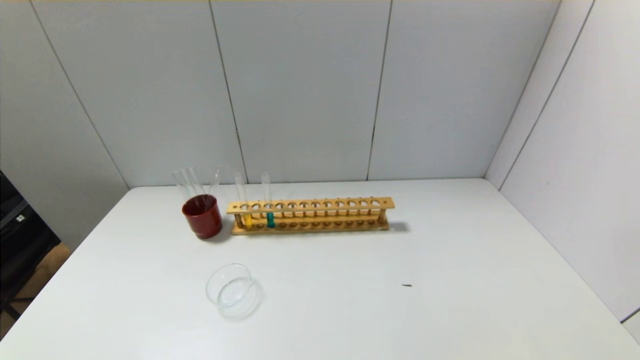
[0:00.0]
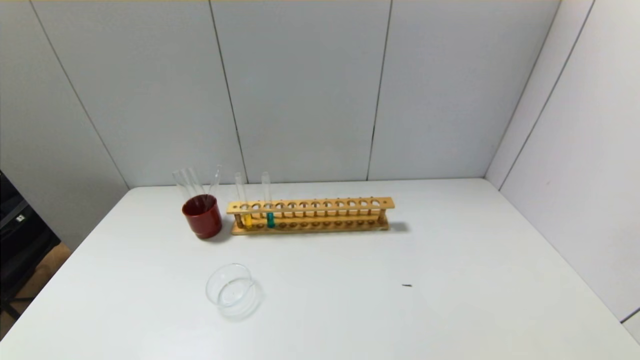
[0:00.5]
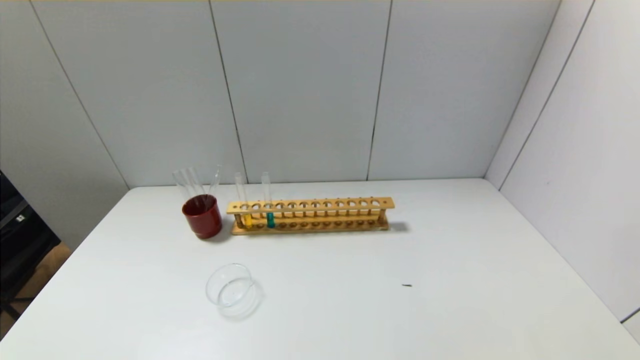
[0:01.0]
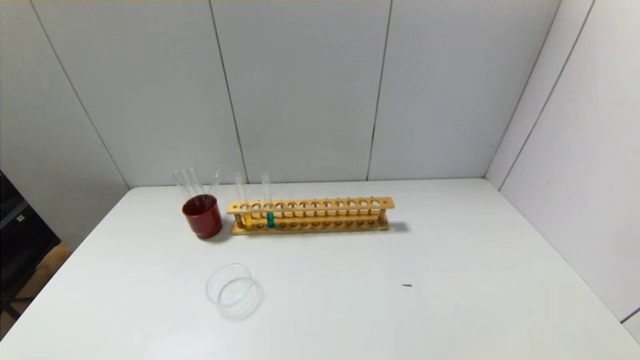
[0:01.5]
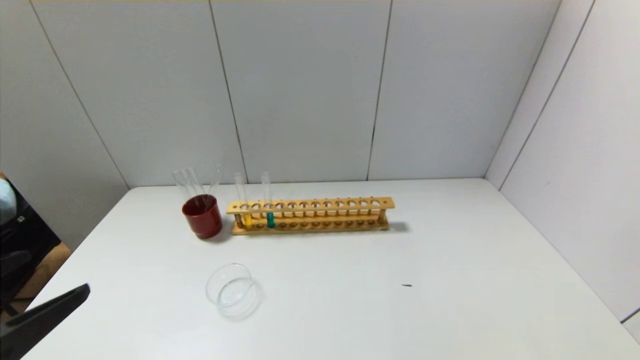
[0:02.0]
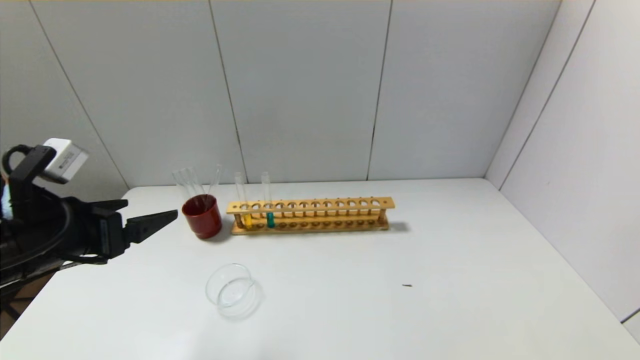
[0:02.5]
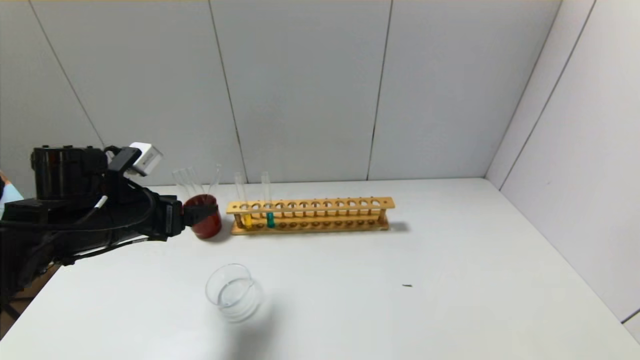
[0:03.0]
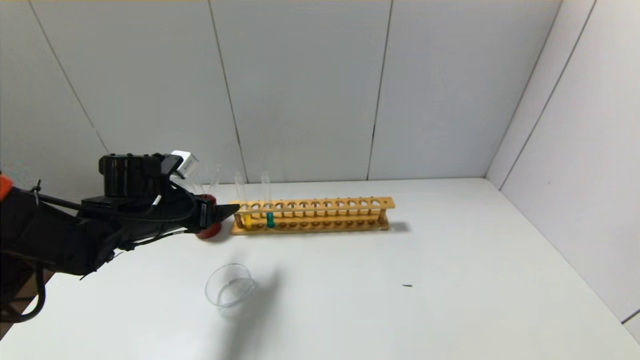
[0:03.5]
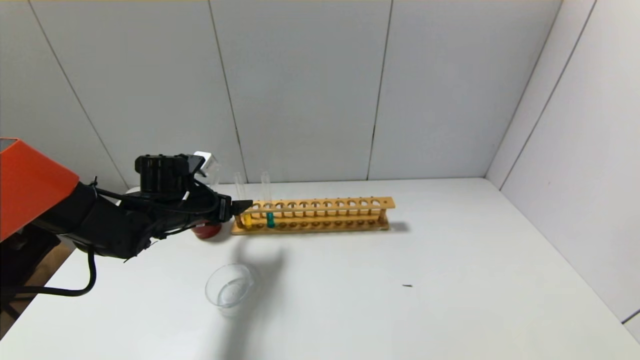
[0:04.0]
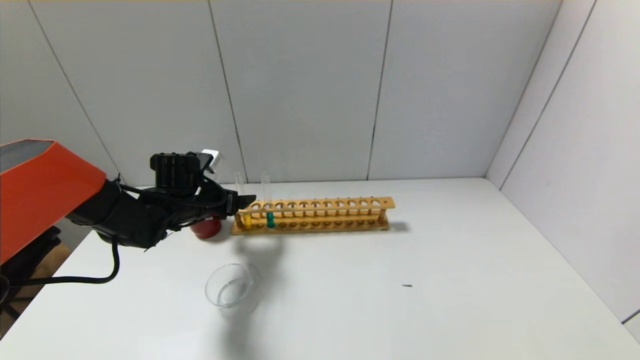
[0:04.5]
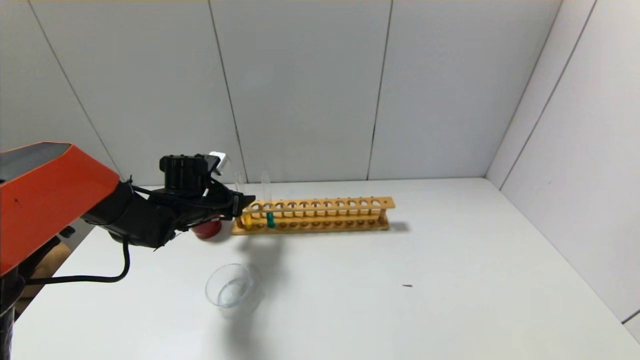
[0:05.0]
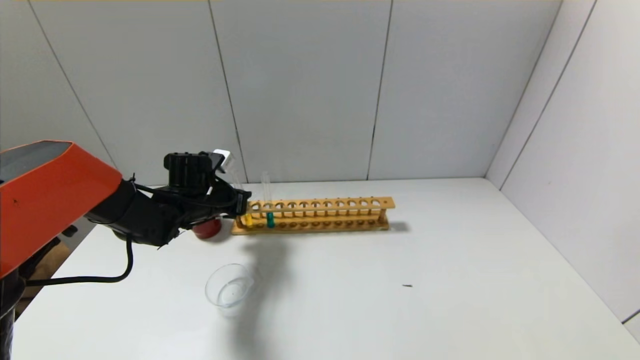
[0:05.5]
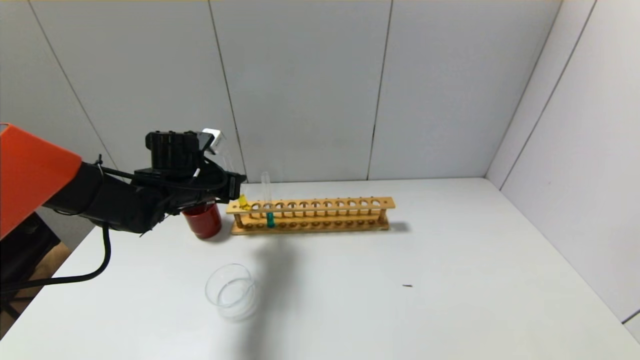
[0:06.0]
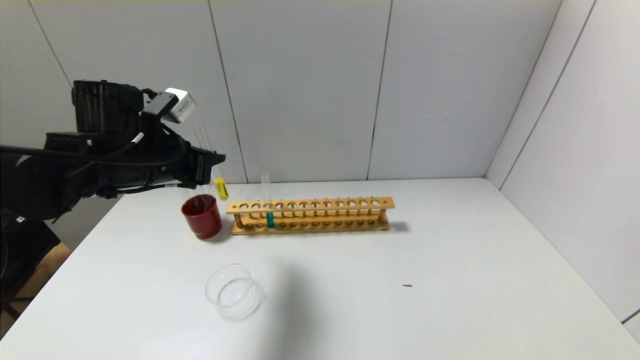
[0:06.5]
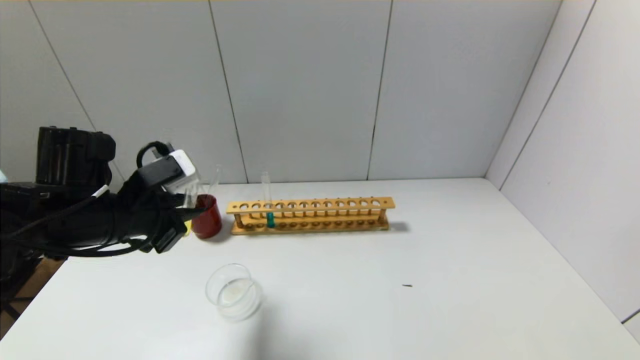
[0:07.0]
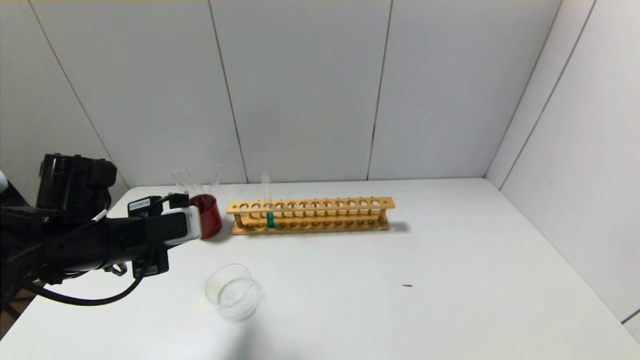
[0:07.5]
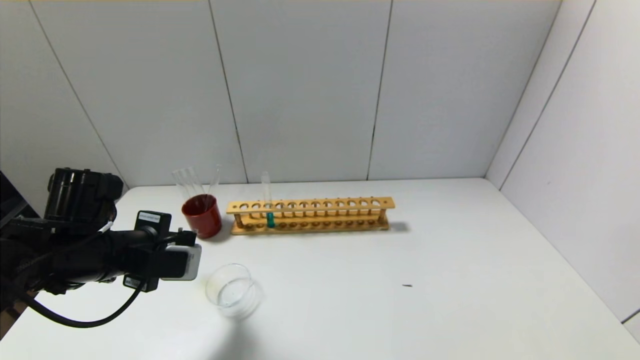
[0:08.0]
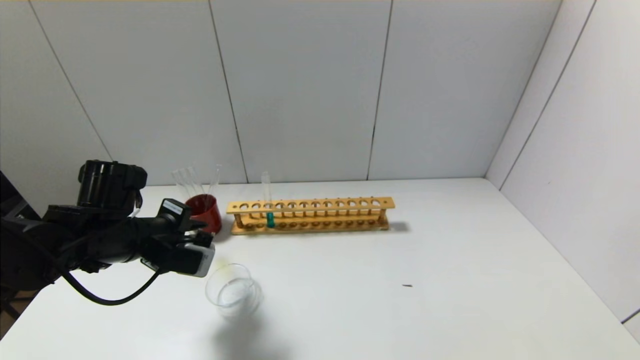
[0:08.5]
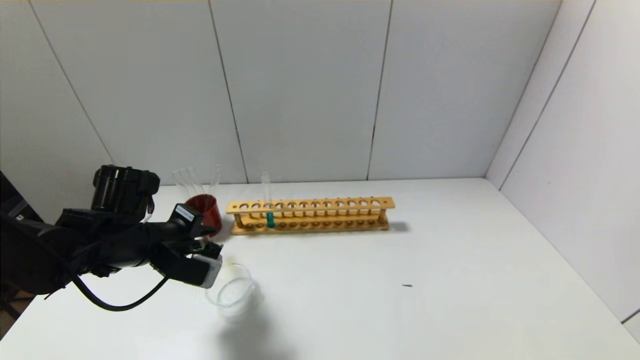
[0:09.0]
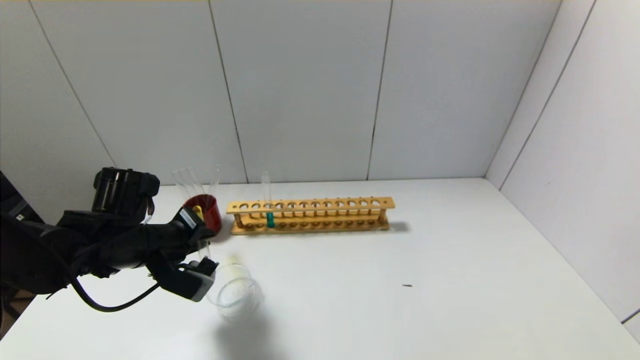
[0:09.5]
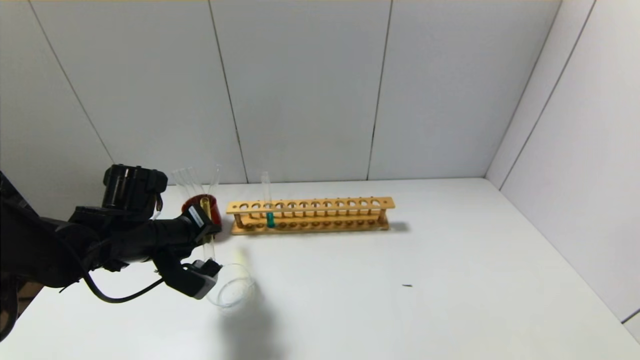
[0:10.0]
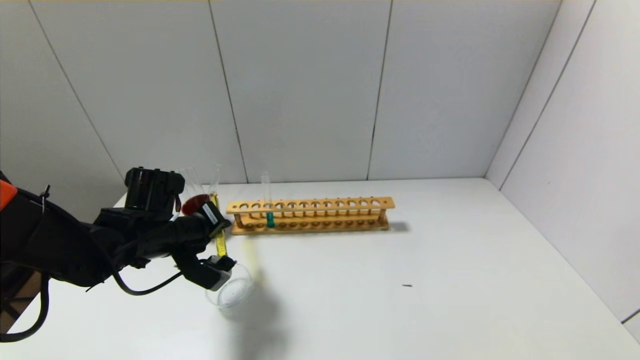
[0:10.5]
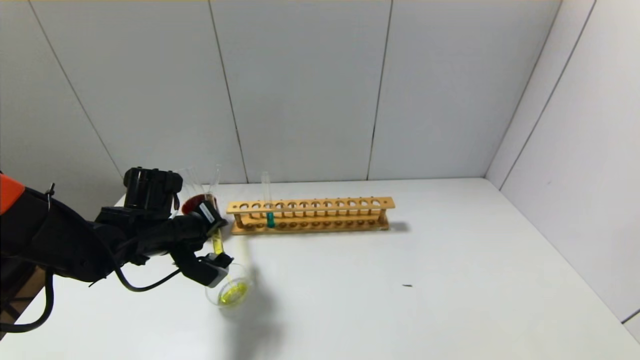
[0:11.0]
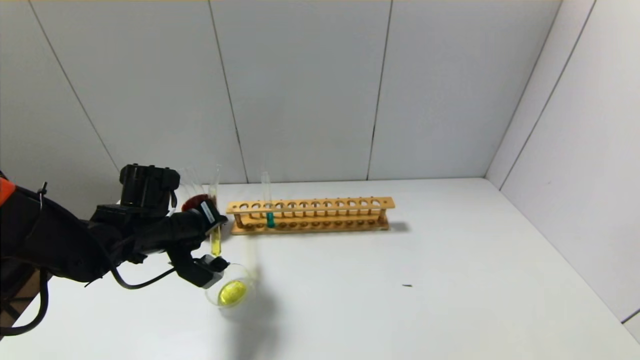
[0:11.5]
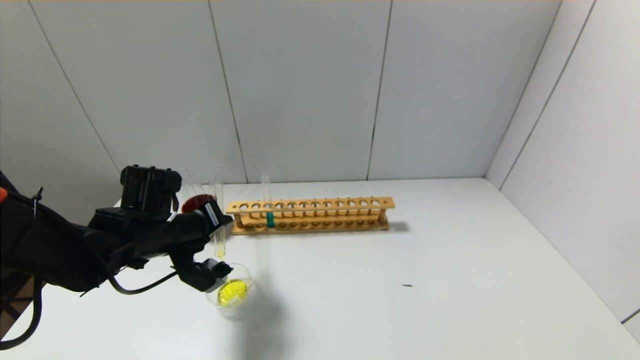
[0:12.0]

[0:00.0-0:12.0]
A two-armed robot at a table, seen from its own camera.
Step, 0:00.0 to 0:05.0: Grasp the yellow reagent with the left gripper.
0:00.0 to 0:02.0: The left gripper heads upward and forward, covering about 15 cm.
0:02.0 to 0:04.0: The left gripper heads forward, covering roughly 30 cm.
0:04.0 to 0:06.0: The left gripper closes its fingers.
0:06.0 to 0:08.0: The left gripper is displaced backward by about 15 cm.
0:08.0 to 0:10.0: The left gripper moves some 5 cm.
0:10.0 to 0:12.0: The grippers stay close to where they were, moving slightly.

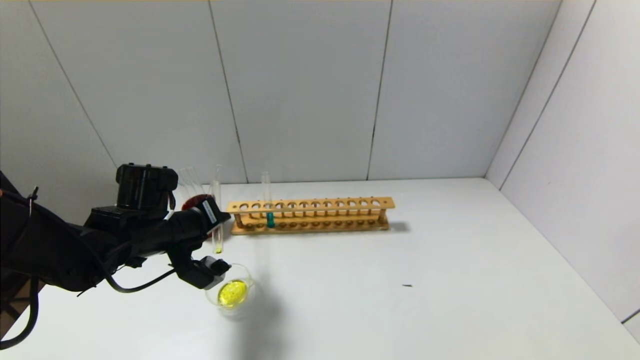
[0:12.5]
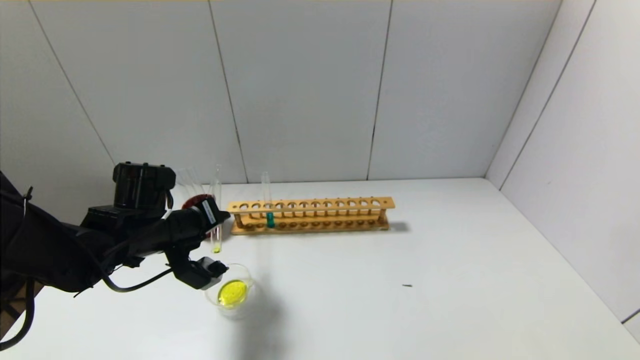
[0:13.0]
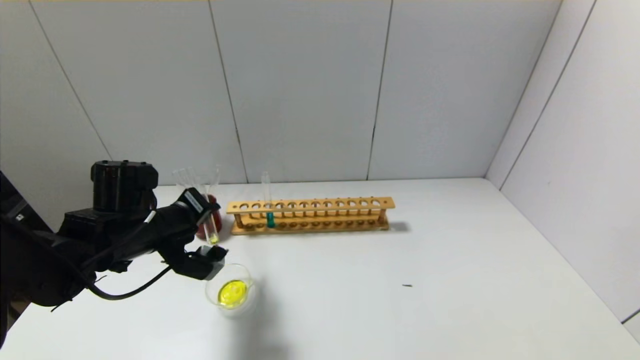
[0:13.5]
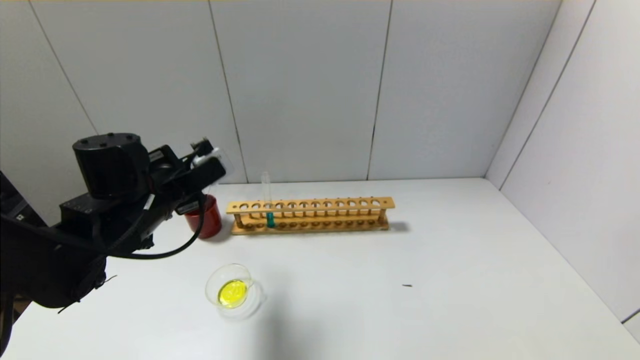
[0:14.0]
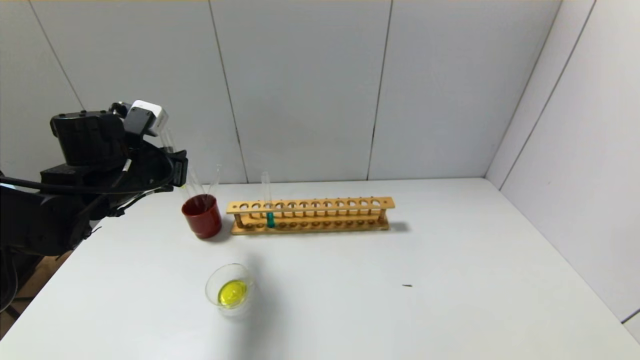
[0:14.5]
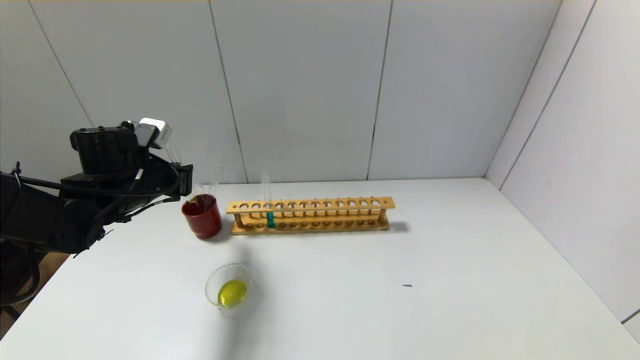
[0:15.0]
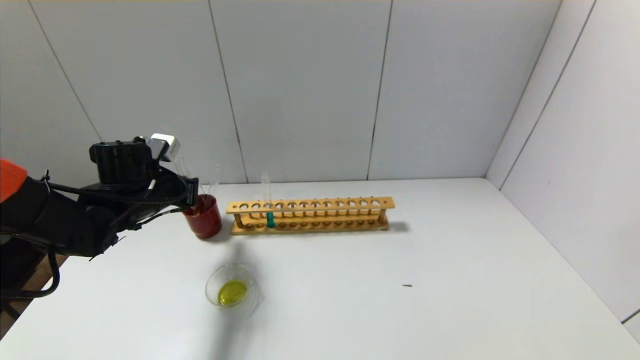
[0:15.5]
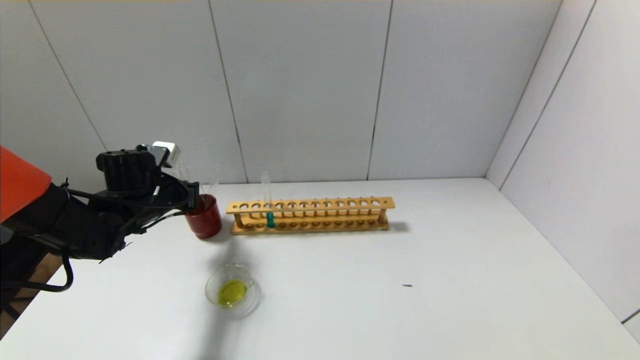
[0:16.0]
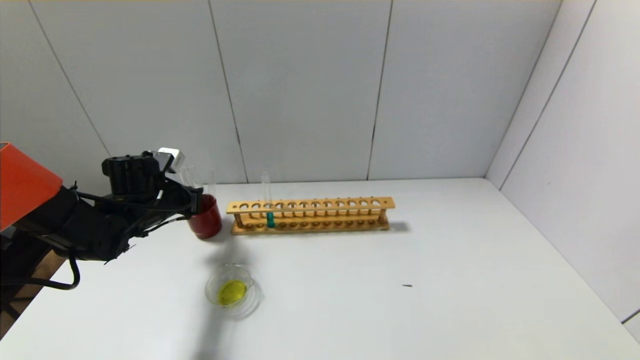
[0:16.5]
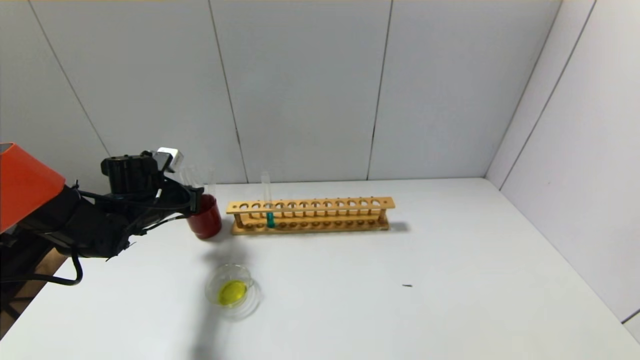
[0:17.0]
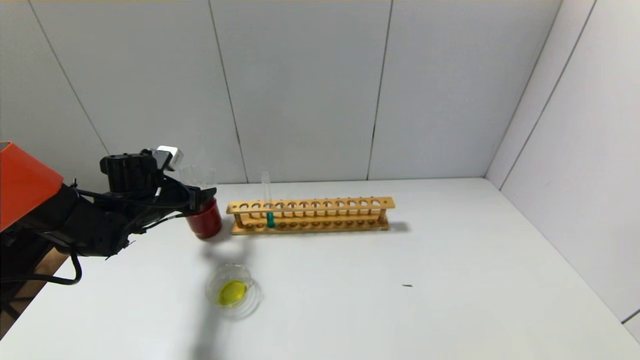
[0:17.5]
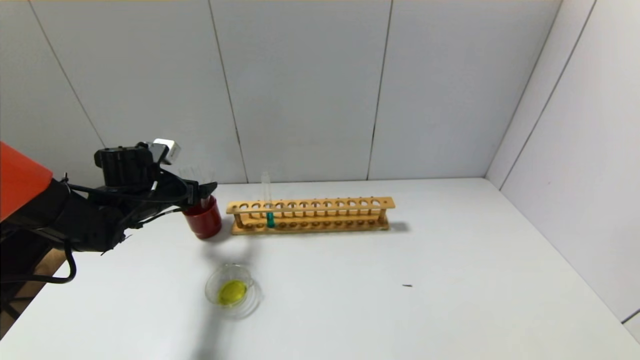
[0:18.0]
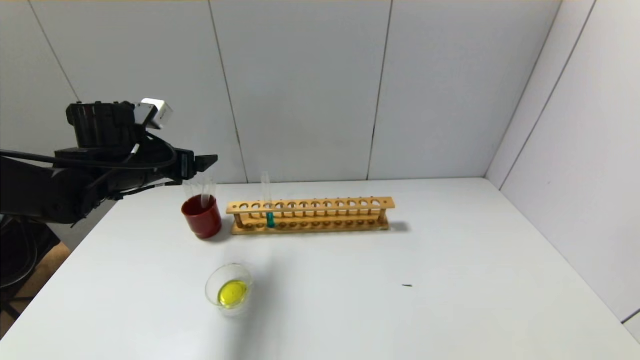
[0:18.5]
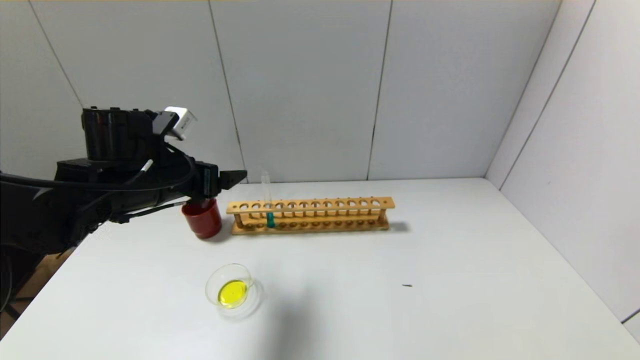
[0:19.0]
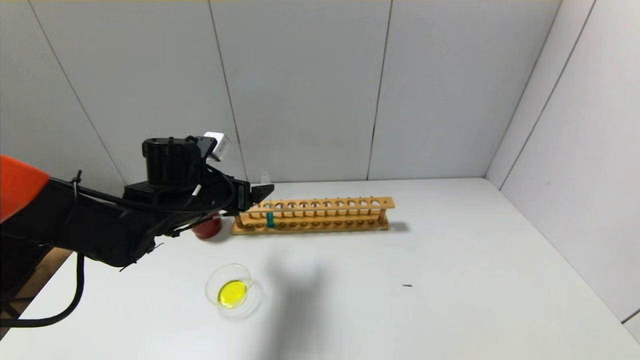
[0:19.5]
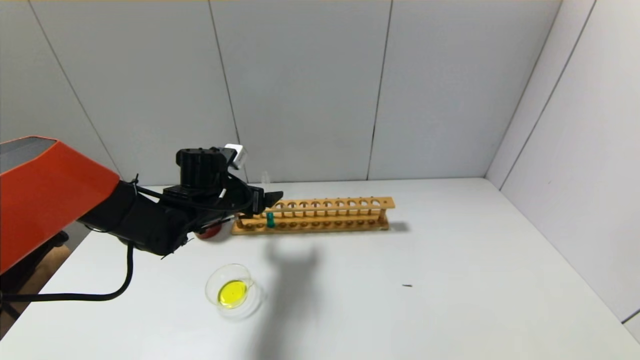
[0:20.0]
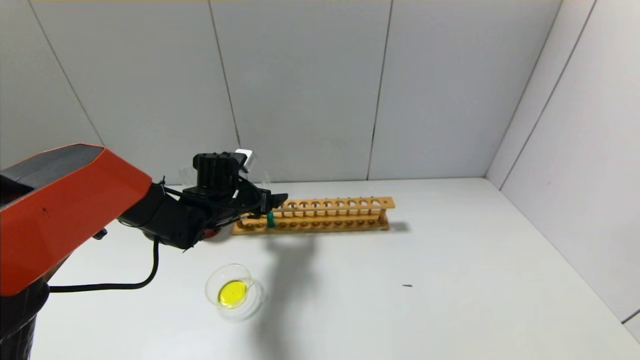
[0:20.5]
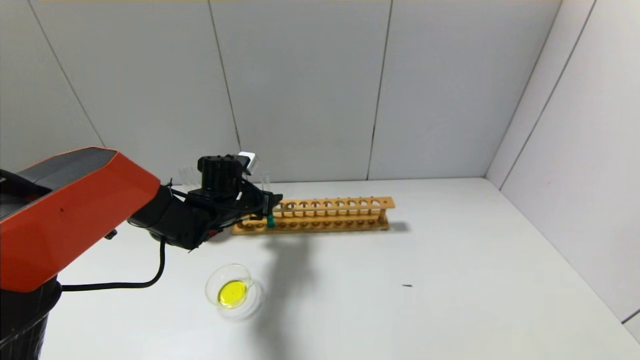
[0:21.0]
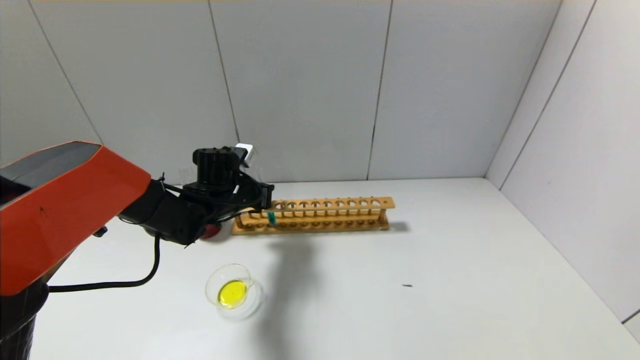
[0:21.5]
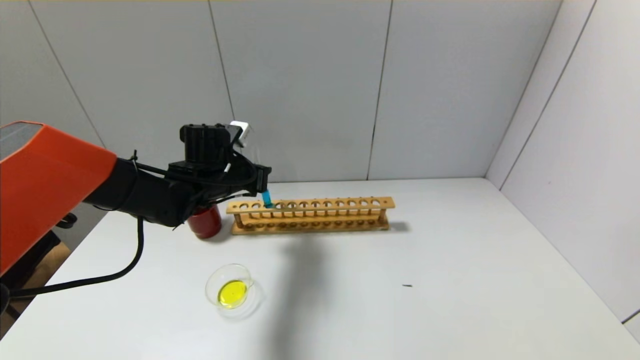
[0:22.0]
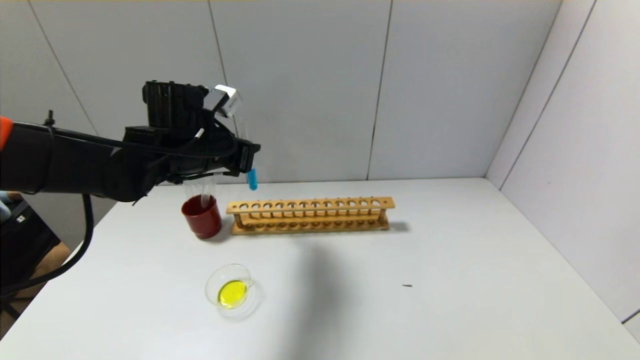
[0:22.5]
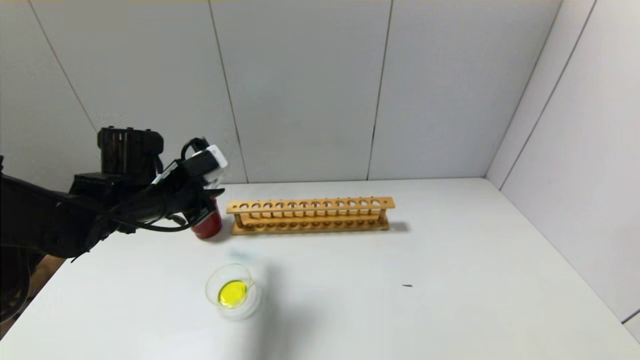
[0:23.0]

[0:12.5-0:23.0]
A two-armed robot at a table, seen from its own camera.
Step, 0:14.0 to 0:17.0: Place the test tube into the brown cup with the left gripper.
Step, 0:17.5 to 0:21.0: Grasp the blue reagent with the left gripper.
0:12.5 to 0:14.5: The left gripper goes about 5 cm upward.
0:14.5 to 0:16.5: The left gripper heads downward, covering some 10 cm.
0:16.5 to 0:19.0: The left gripper heads upward, backward and to the right, covering some 15 cm, and opens.
0:19.0 to 0:21.0: The left gripper shifts approximately 15 cm downward, forward and to the right, and closes up.
0:21.0 to 0:23.0: The left gripper travels backward, upward and to the left by some 15 cm, and closes up.
